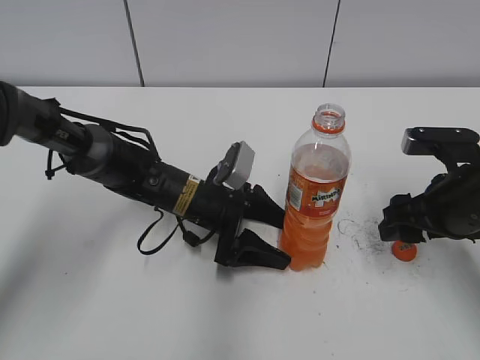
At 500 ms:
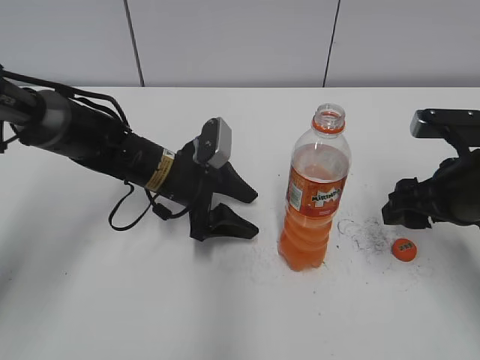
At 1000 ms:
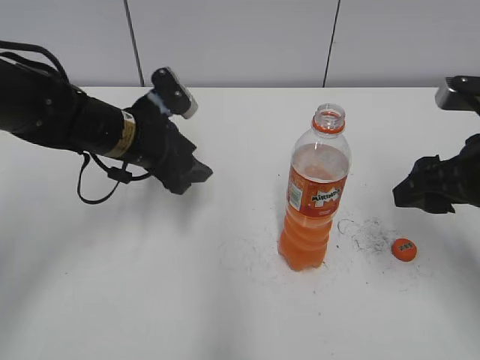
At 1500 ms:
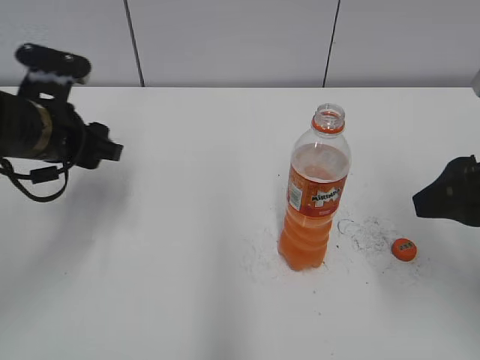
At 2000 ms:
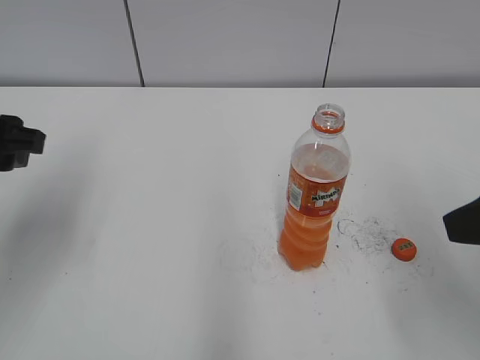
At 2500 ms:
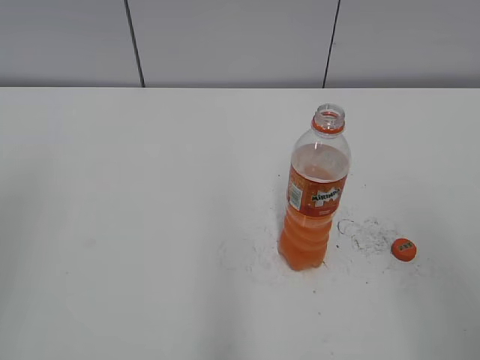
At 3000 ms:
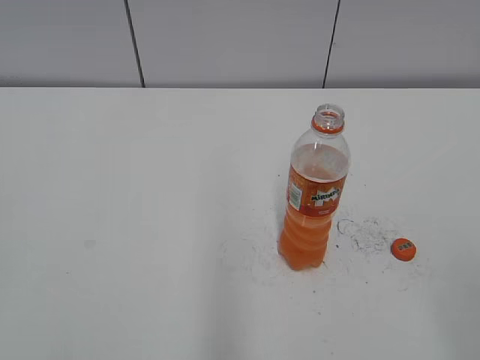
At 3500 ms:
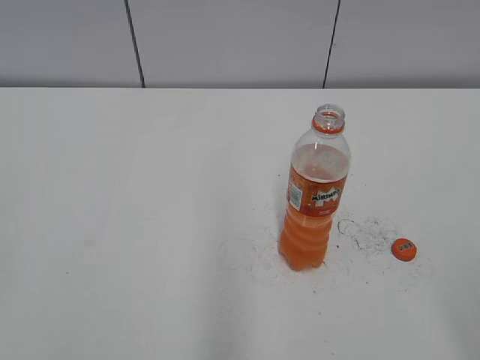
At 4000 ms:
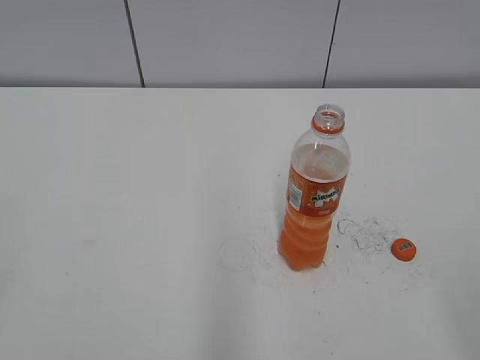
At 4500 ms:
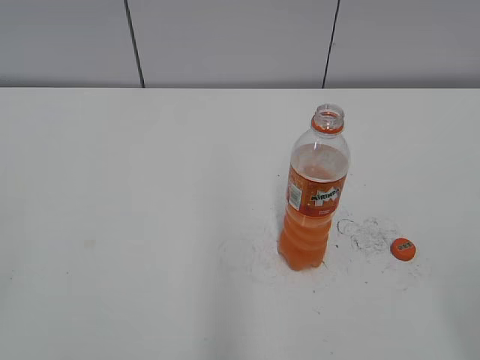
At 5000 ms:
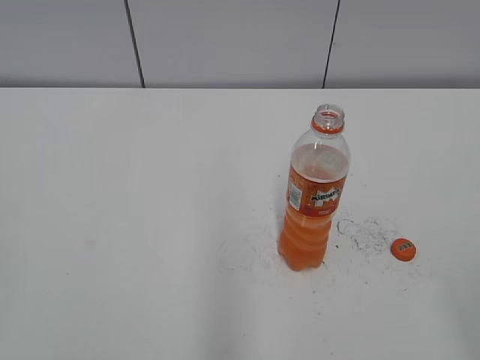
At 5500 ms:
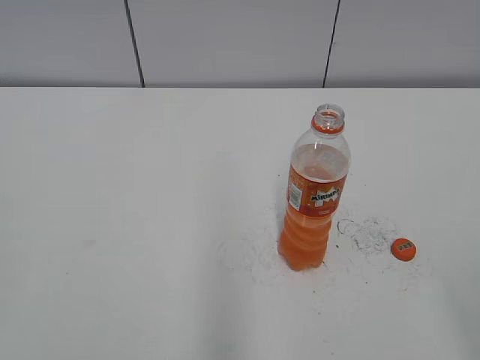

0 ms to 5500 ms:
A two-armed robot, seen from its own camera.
0 ms to 2000 ms: The right gripper moves upward and backward, about 20 cm, while the left gripper goes about 30 cm upward, to the left and backward, and closes.
2000 ms to 3500 ms: The left gripper travels backward by some 25 cm. Meanwhile the right gripper goes about 15 cm backward.
